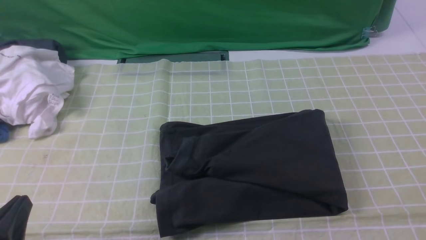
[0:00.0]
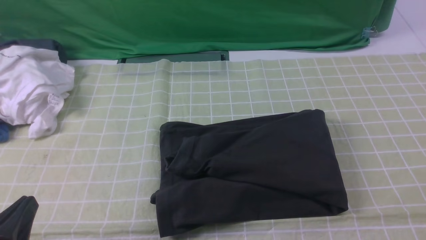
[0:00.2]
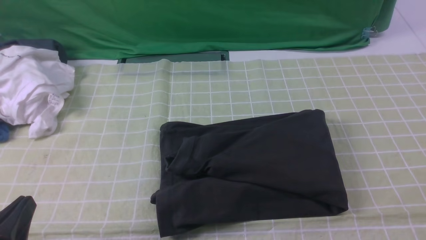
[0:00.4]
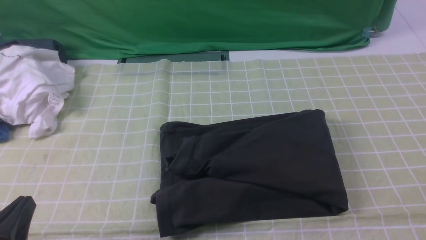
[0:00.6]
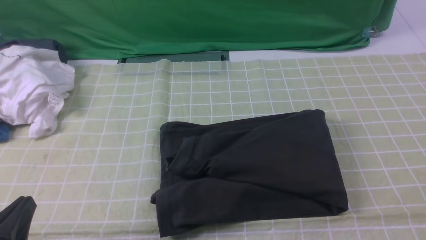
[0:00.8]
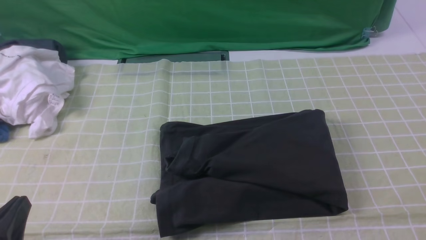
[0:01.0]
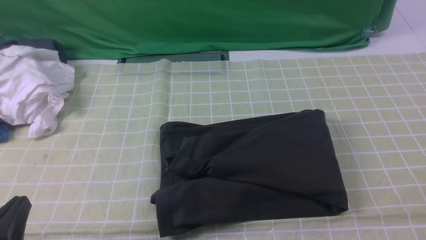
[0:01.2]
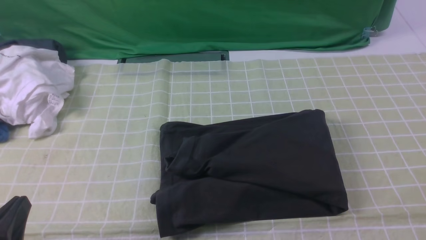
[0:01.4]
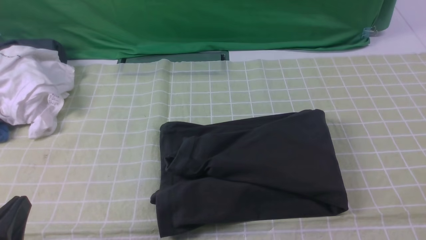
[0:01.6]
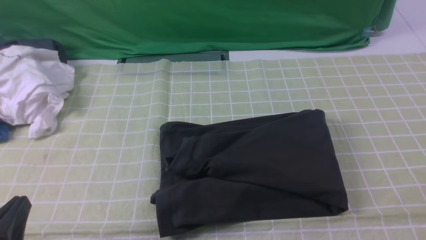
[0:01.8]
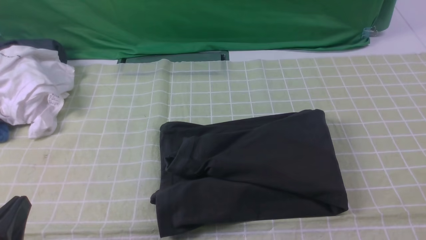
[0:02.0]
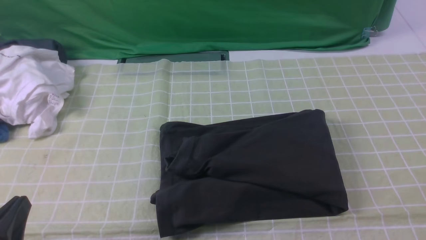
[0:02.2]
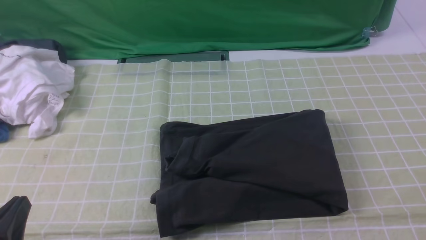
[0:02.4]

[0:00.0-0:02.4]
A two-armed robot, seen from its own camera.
0:00.0 to 0:02.4: Both grippers stay about where they are.

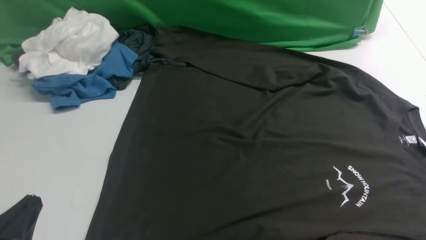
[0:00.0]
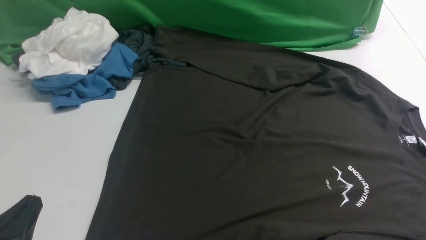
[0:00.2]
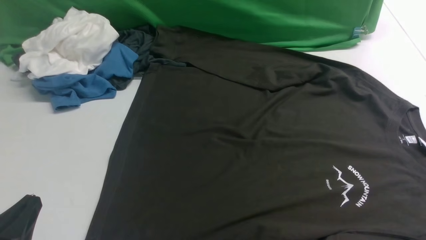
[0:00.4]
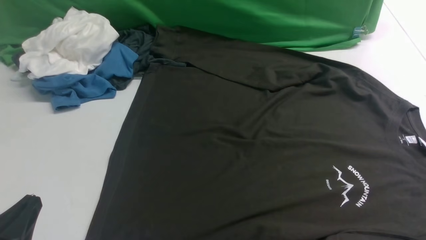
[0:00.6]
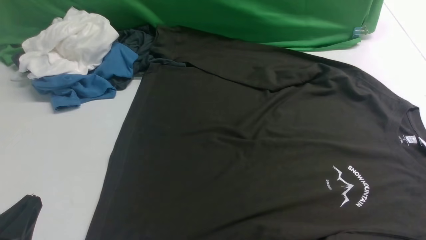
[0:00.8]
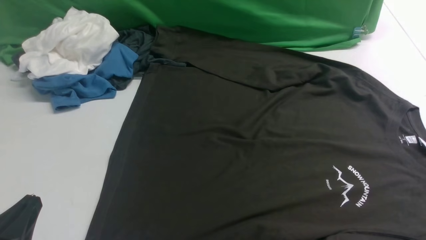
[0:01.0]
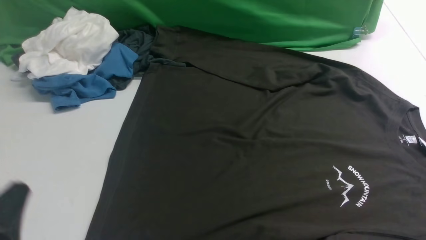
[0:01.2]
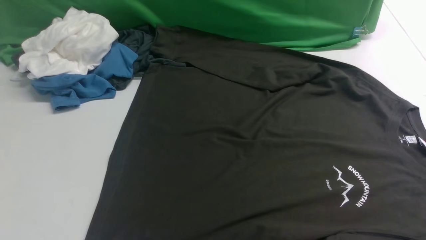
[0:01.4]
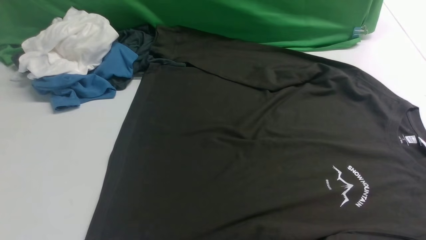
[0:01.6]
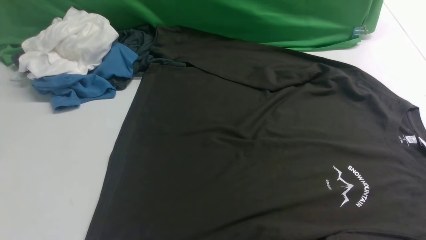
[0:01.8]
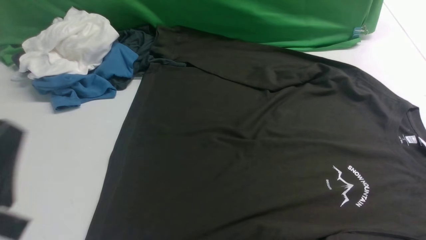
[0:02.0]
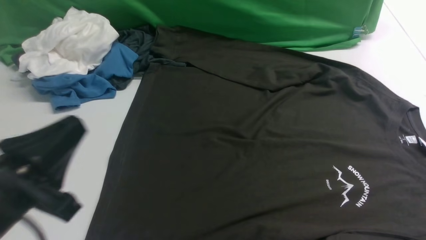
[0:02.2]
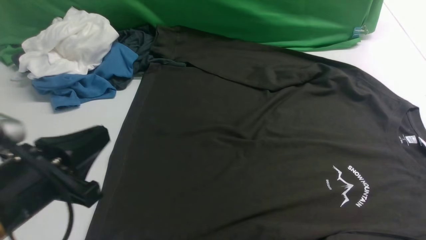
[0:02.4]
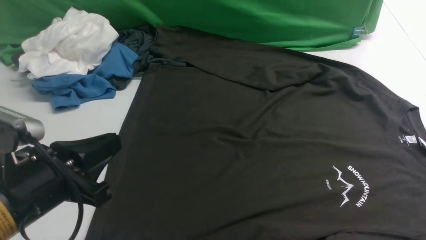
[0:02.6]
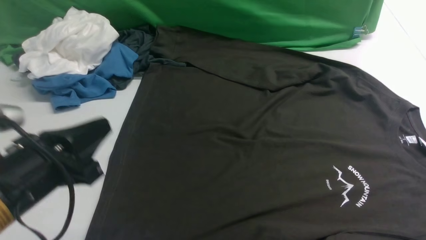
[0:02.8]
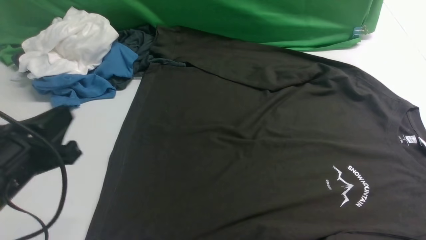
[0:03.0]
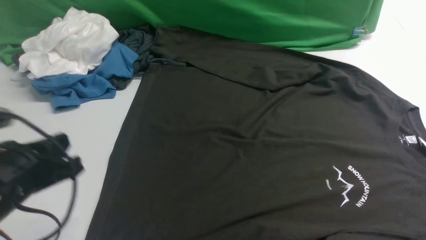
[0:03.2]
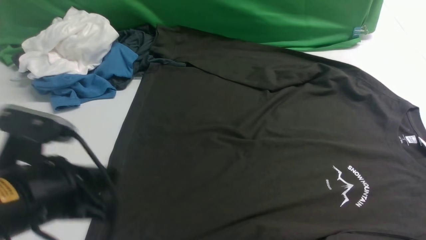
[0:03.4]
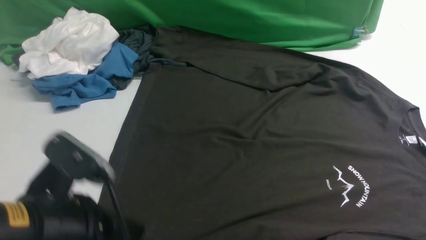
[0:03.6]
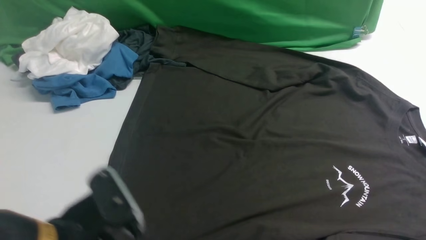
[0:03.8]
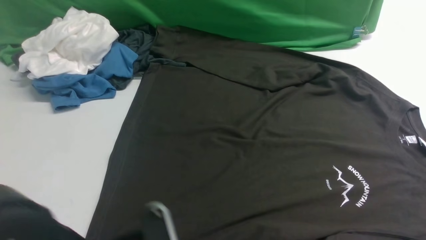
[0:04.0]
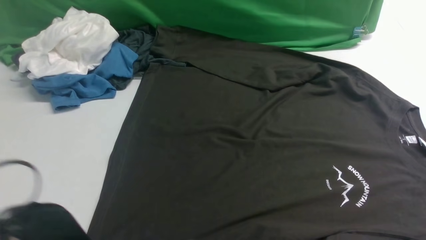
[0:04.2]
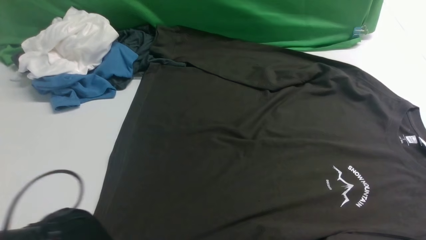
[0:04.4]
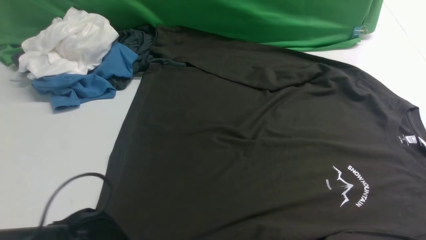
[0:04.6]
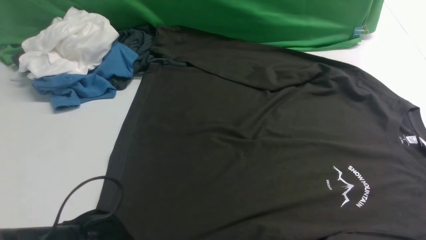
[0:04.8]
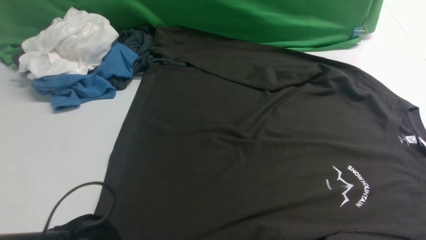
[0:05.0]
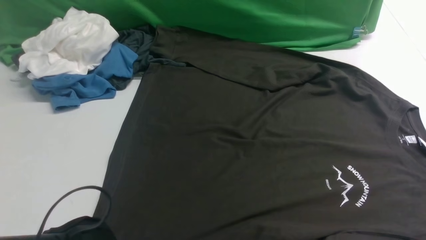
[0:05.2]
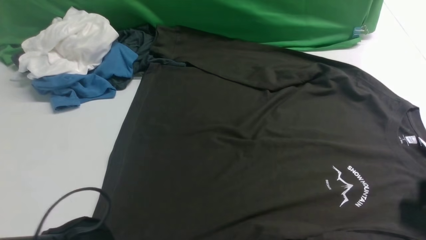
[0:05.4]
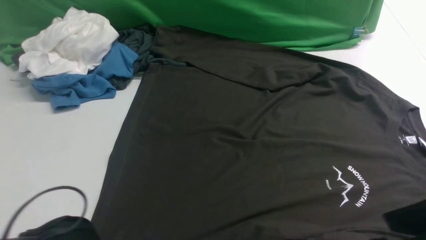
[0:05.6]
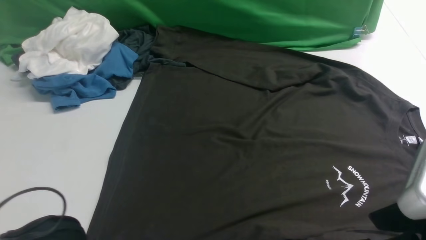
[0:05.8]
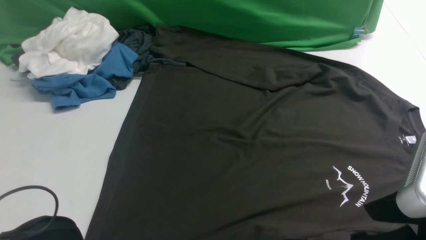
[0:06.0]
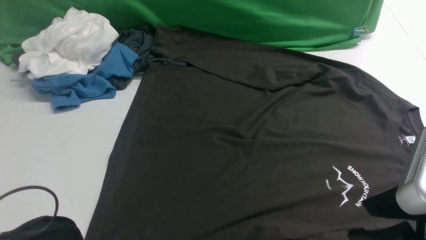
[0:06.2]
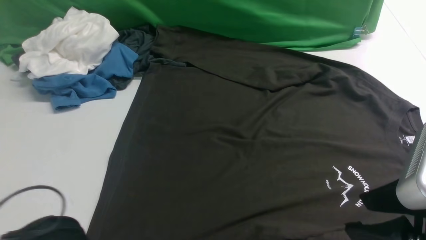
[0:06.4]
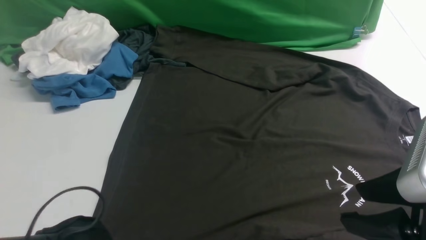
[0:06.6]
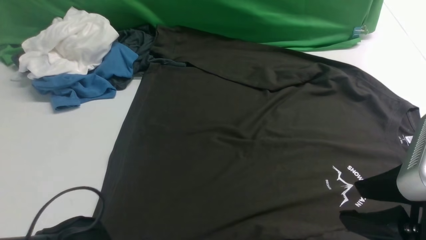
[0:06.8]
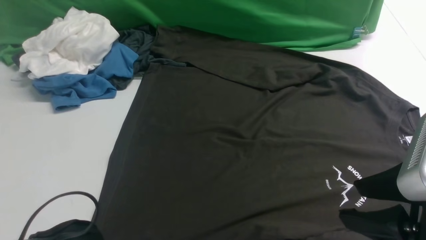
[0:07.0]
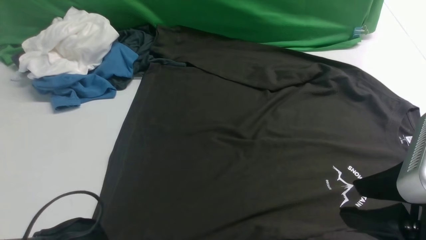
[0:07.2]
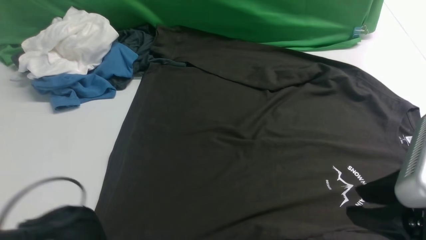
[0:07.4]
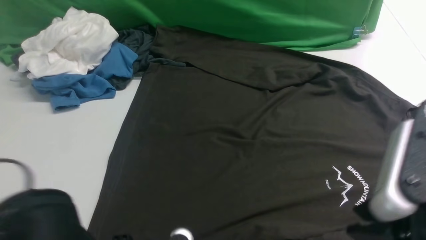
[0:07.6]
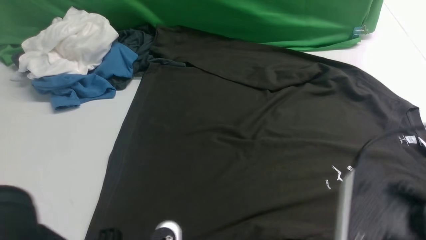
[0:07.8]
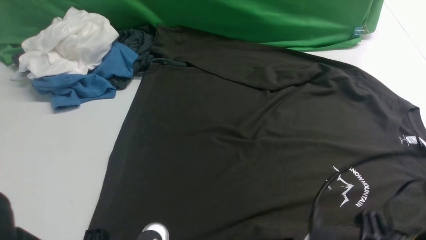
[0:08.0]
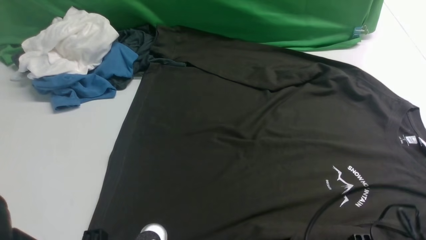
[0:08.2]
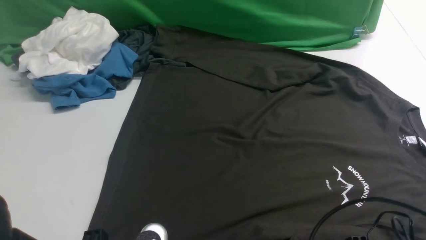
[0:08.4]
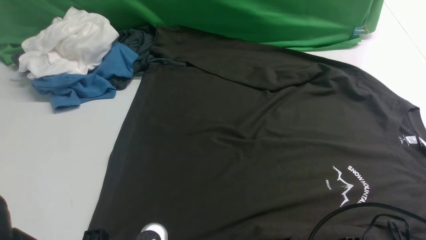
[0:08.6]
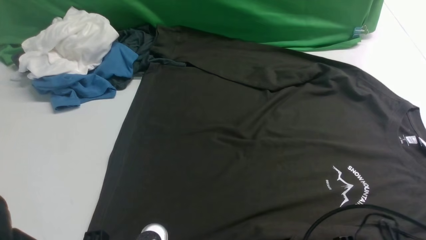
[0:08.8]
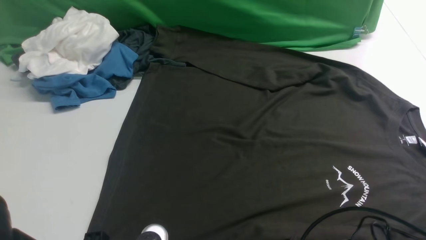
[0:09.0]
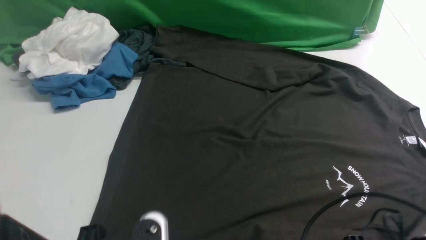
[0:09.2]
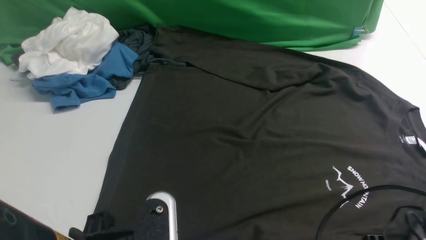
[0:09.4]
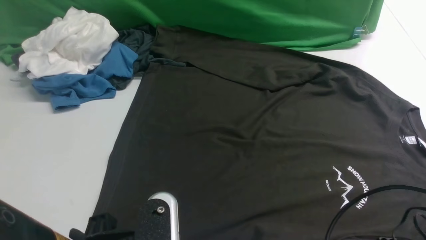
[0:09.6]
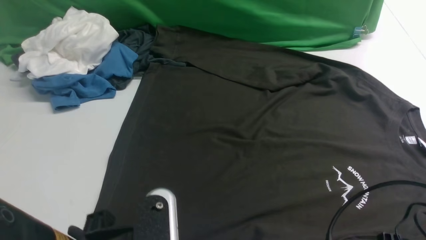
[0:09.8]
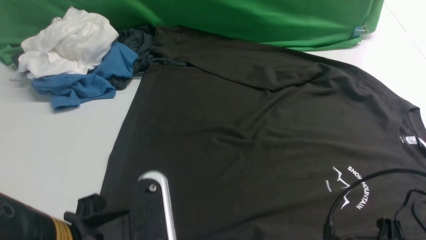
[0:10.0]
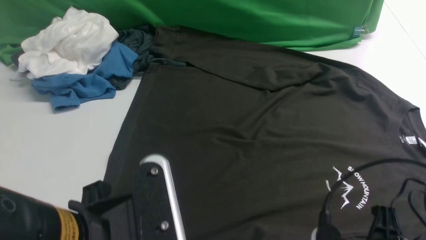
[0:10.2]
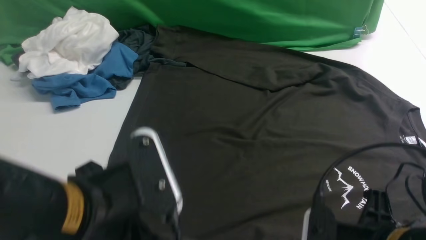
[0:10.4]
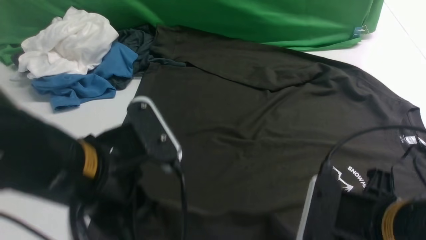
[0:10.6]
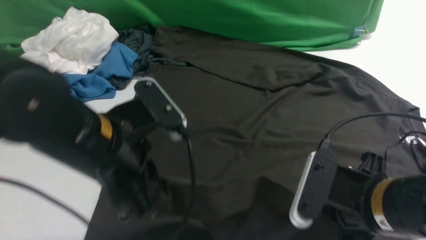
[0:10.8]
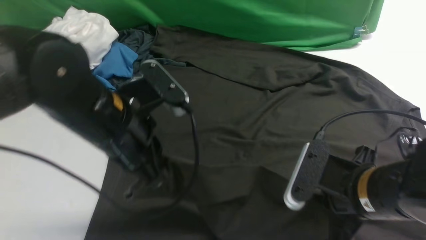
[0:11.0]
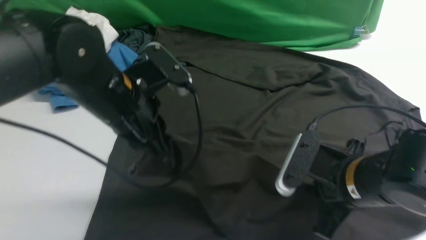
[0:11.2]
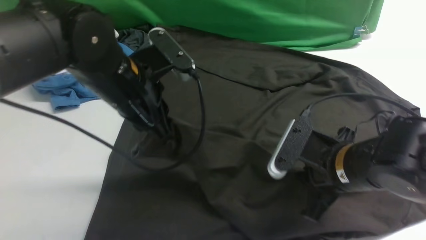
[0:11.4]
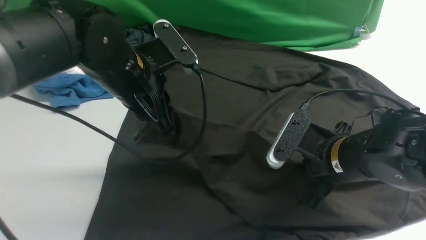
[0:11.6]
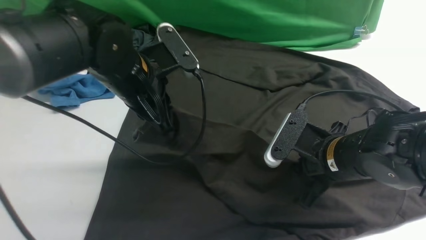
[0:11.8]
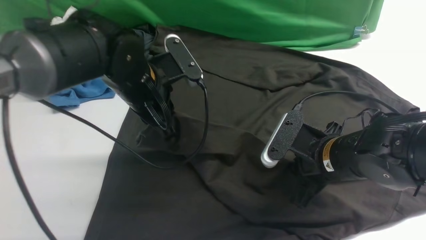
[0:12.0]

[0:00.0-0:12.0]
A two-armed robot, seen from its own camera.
Step, 0:00.0 to 0:10.4: use the left arm to clamp the cuff closest to it.
0:00.0 to 0:01.6: The left gripper shifts about 5 cm upward.
0:01.6 to 0:03.0: The left gripper goes roughly 10 cm forward.
0:03.0 to 0:04.4: The left gripper moves to the right, backward and downward, some 20 cm, and opens.
0:04.4 to 0:06.0: The right gripper heads upward and to the left, covering roughly 15 cm, and opens its fingers; the left gripper closes, then reopens.
0:06.0 to 0:07.6: The left gripper closes its fingers.
0:07.6 to 0:09.0: The right gripper heads downward, covering roughly 15 cm, and opens, then closes once more.
0:09.0 to 0:10.4: The left gripper is displaced forward by approximately 5 cm; the right gripper goes some 5 cm upward.
0:10.4 to 0:12.0: The two grippers go about 20 cm forward.

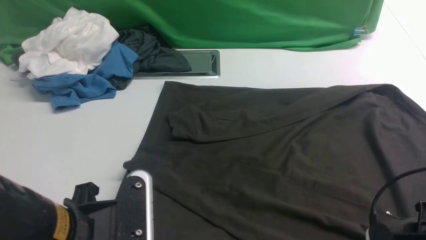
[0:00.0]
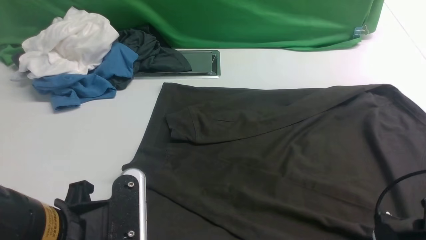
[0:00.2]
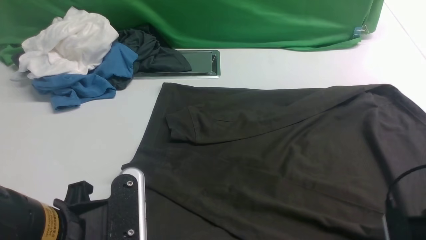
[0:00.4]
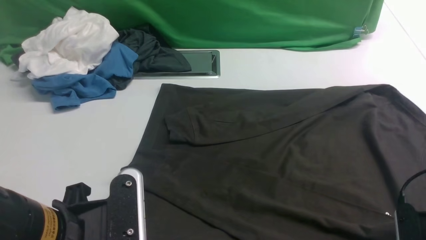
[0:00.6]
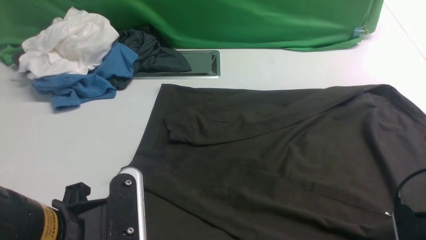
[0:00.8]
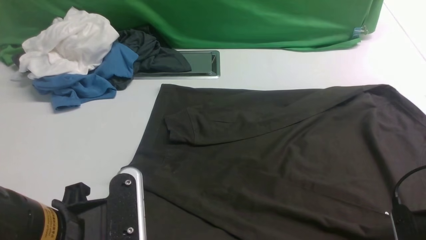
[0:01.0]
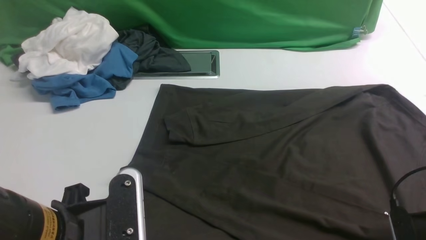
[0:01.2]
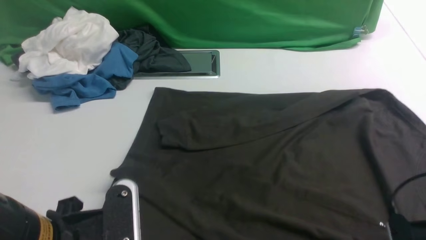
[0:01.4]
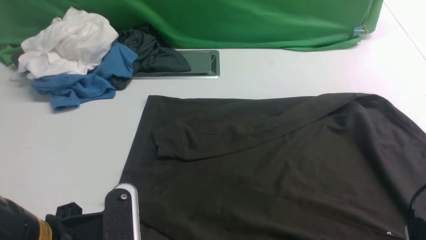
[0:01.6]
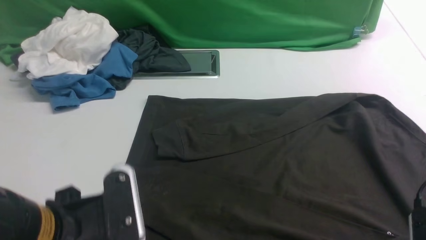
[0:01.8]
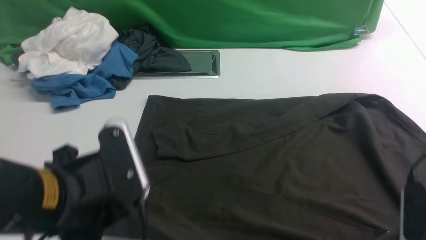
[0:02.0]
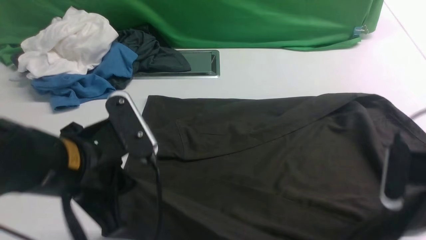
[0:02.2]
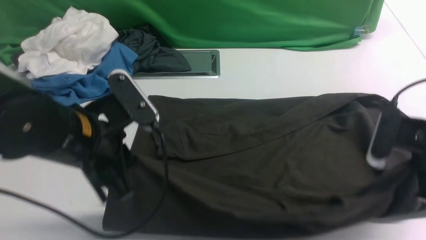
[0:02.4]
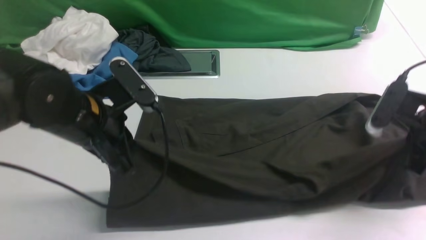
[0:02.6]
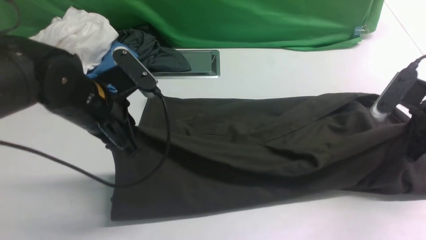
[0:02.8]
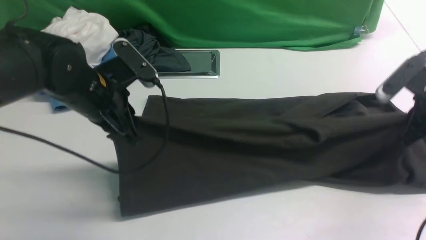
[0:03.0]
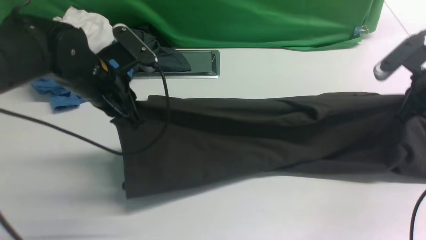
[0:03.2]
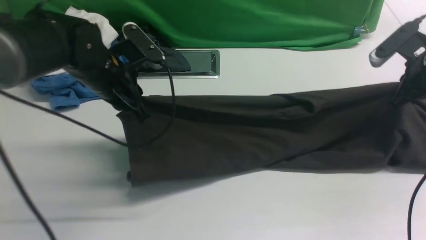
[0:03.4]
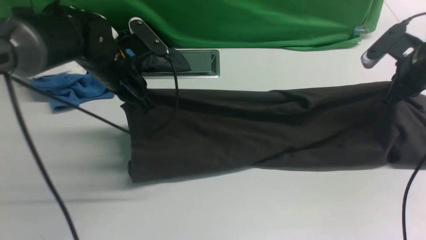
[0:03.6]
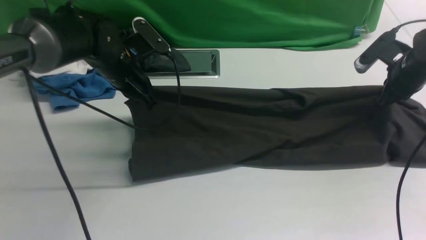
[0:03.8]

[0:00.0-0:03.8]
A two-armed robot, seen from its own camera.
Step, 0:00.0 to 0:02.0: use both arms simultaneously to clamp the lower edge of the clothing fabric.
0:00.0 to 0:01.2: The right gripper goes roughly 5 cm to the right, and closes its fingers.
0:01.2 to 0:02.6: The right gripper shifts roughly 15 cm forward and upward, while the left gripper goes approximately 15 cm forward.
0:02.6 to 0:03.8: The two grippers go approximately 15 cm forward.
